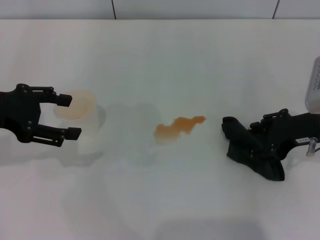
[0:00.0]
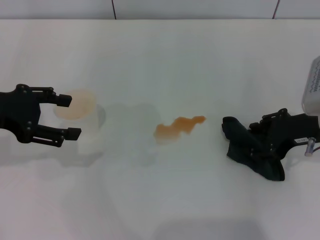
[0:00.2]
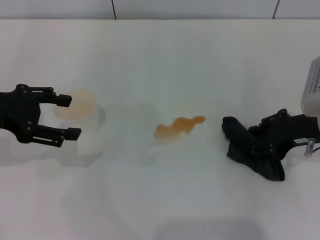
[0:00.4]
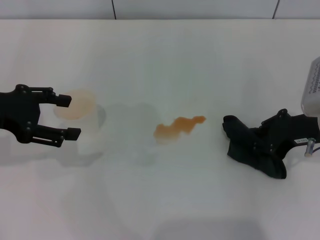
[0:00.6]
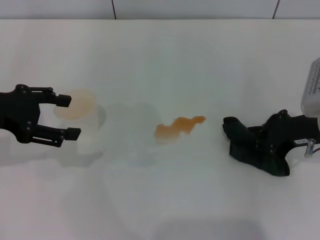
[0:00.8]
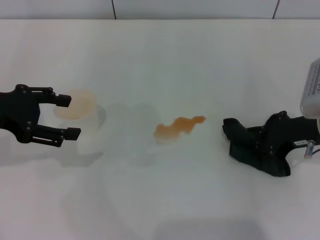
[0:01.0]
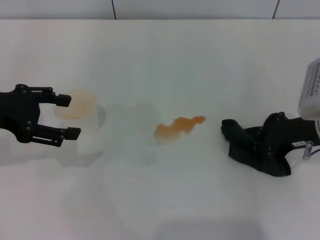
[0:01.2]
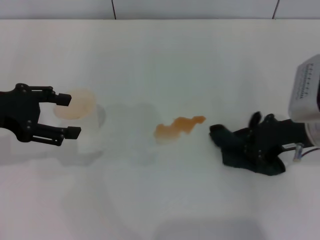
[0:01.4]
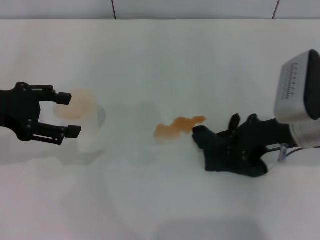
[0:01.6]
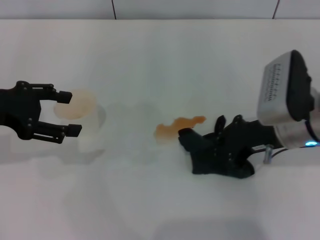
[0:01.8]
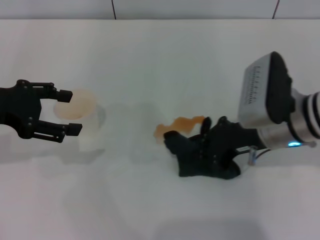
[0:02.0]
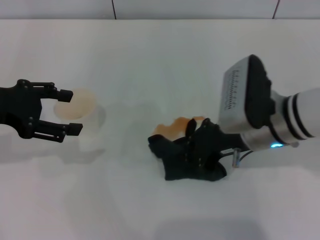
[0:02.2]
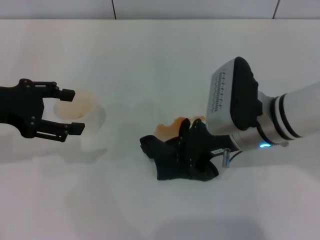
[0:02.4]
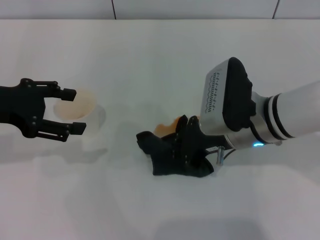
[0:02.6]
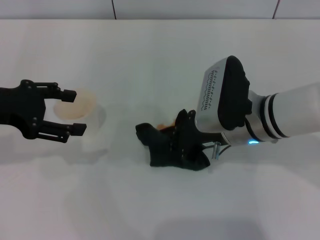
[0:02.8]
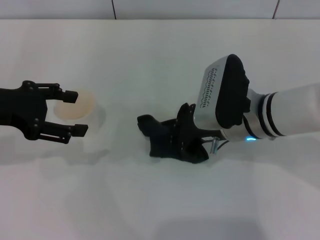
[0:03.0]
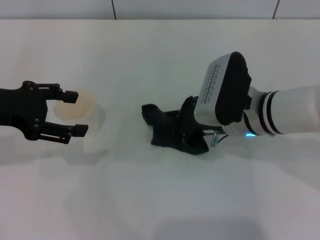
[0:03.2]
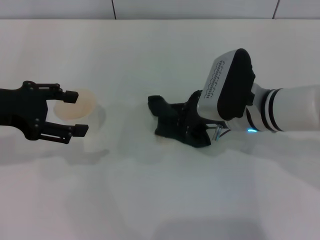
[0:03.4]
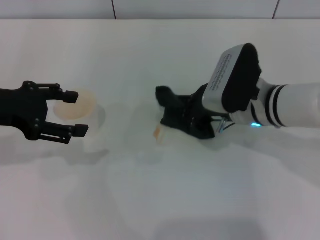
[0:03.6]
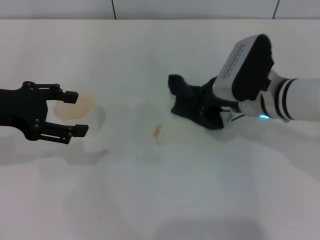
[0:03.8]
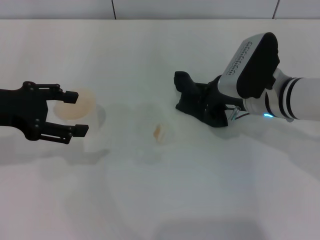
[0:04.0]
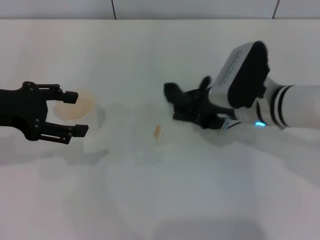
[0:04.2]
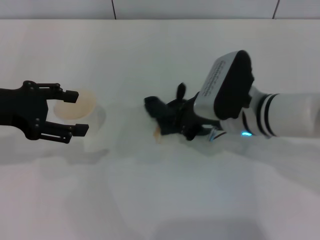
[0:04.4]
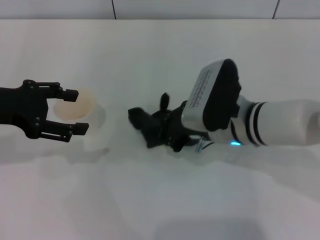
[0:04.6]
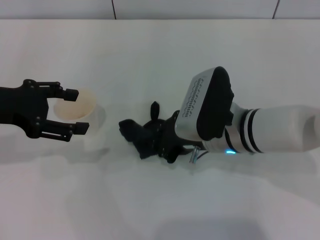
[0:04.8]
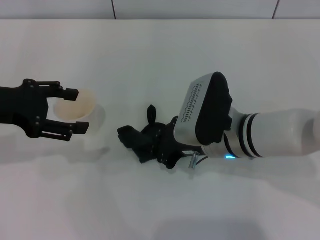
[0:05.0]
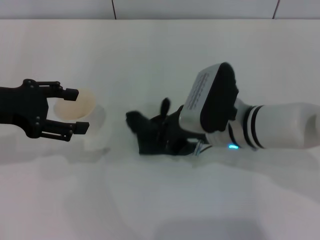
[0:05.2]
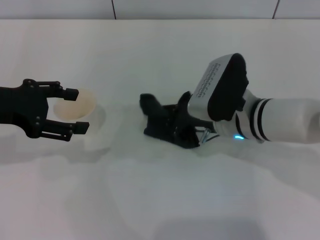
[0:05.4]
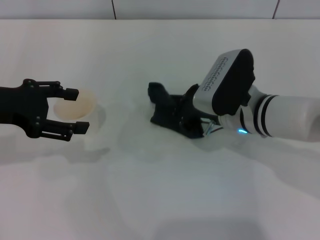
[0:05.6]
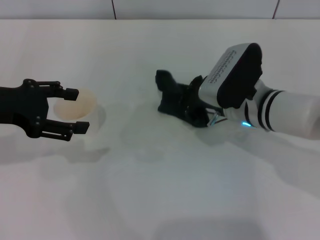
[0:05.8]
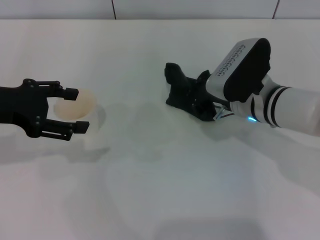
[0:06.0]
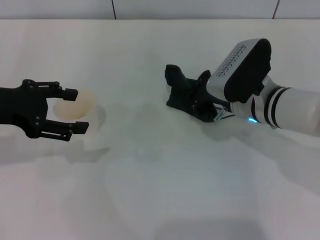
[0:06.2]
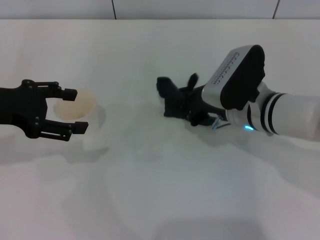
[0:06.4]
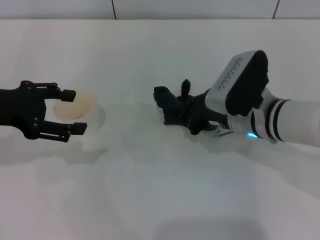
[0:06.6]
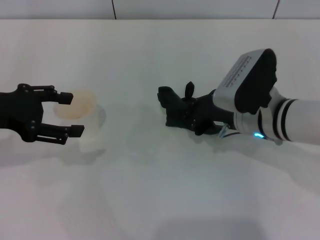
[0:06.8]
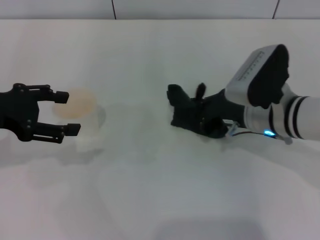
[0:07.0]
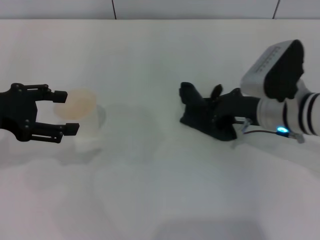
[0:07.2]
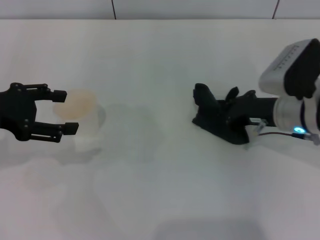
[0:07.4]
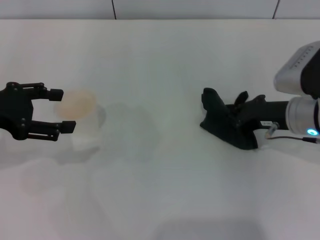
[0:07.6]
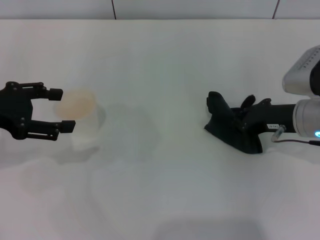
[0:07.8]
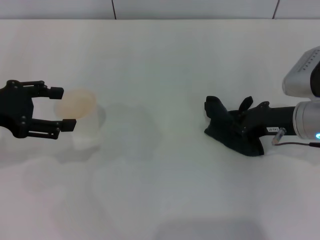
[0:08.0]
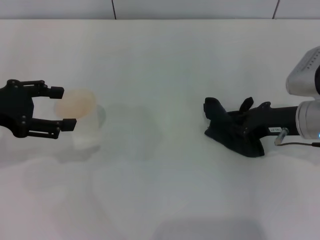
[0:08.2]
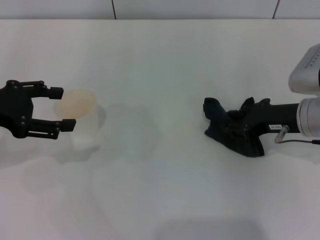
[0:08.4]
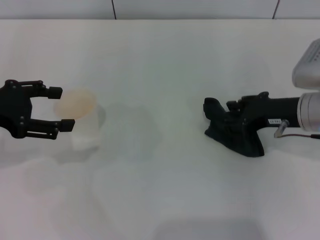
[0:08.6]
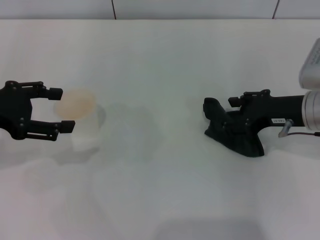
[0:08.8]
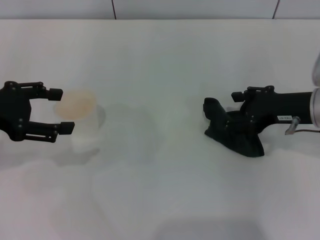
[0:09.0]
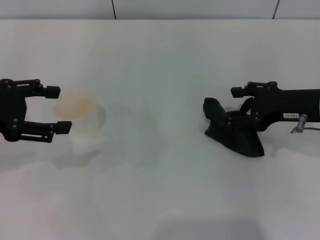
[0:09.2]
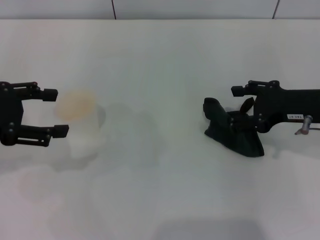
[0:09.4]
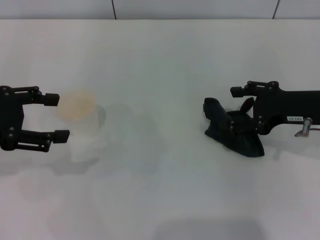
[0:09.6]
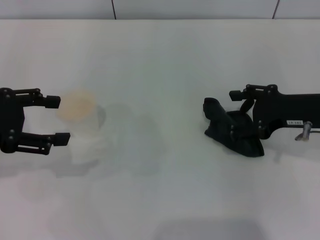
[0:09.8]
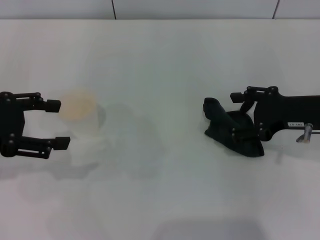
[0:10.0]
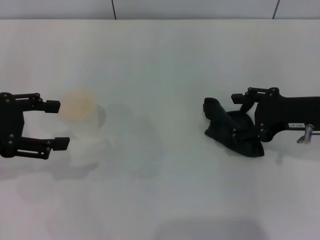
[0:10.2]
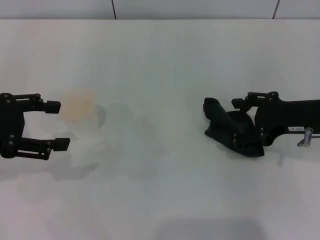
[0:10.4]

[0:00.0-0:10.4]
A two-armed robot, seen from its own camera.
Step, 0:01.4 to 0:07.0: Wipe the stains off the table with the right gripper.
Step, 0:07.2 to 0:09.0: Place the rag on the table with the right gripper.
0:00.0 to 0:01.4: The right gripper closes up.
0:01.4 to 0:03.0: The right gripper shifts approximately 10 cm to the left.
0:03.0 to 0:04.4: The grippers make only small movements.
0:04.4 to 0:06.0: The grippers stay close to where they were, moving slightly.
0:06.0 to 0:07.4: The right gripper goes about 5 cm to the right.
0:07.4 to 0:09.0: The right gripper changes place by some 5 cm, and opens up.
0:09.0 to 0:10.4: The grippers stay close to where they were, moving slightly.
